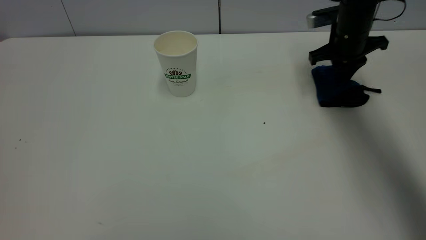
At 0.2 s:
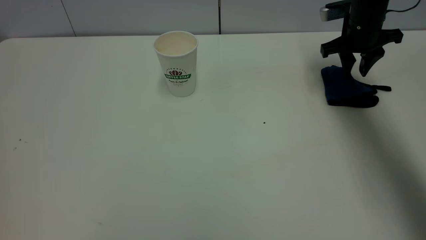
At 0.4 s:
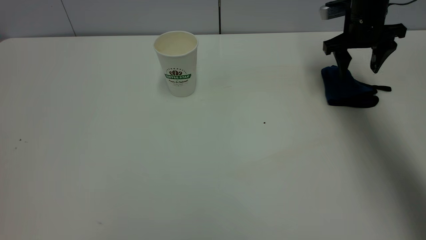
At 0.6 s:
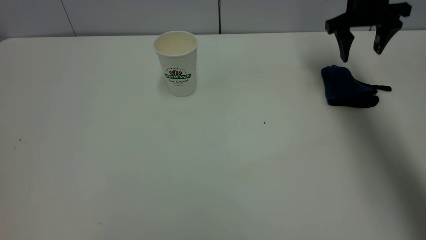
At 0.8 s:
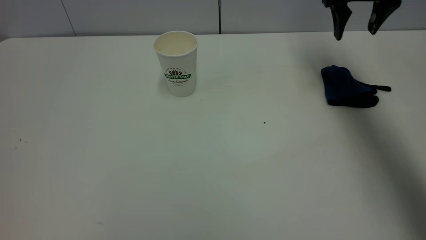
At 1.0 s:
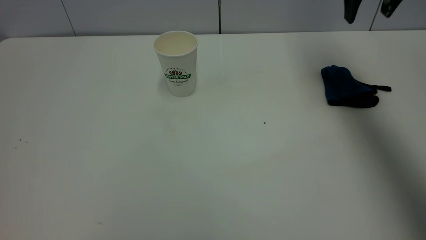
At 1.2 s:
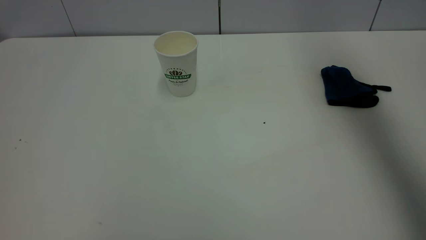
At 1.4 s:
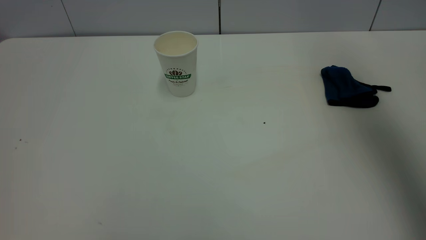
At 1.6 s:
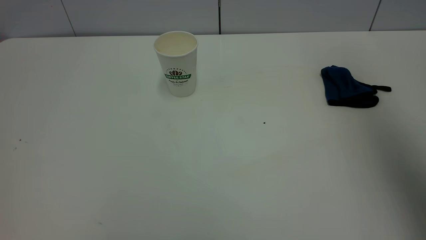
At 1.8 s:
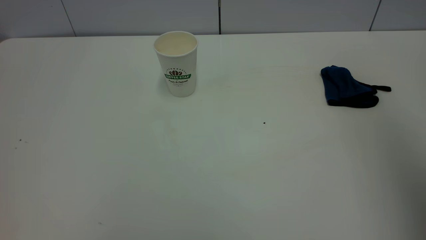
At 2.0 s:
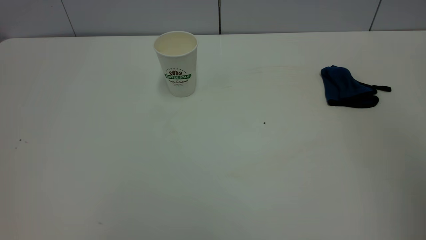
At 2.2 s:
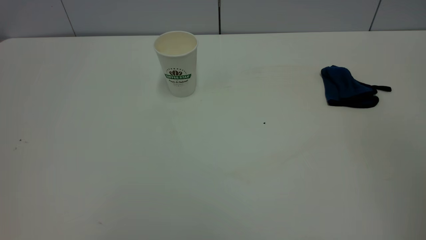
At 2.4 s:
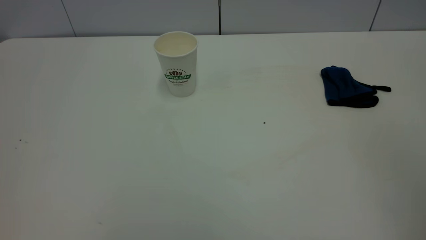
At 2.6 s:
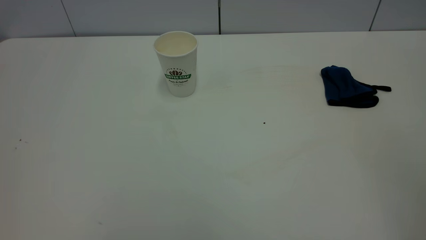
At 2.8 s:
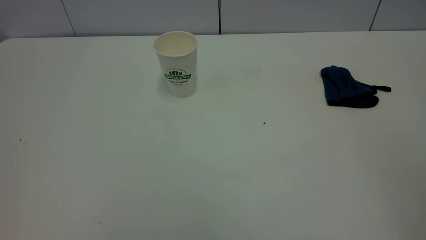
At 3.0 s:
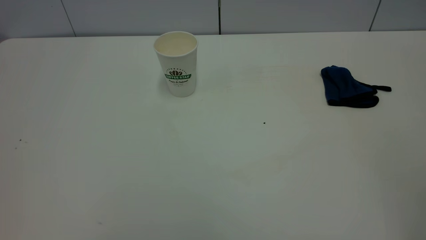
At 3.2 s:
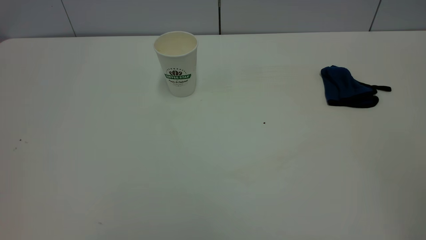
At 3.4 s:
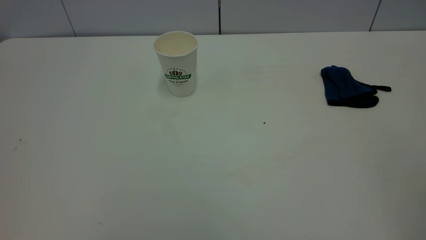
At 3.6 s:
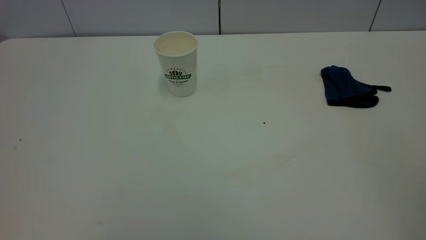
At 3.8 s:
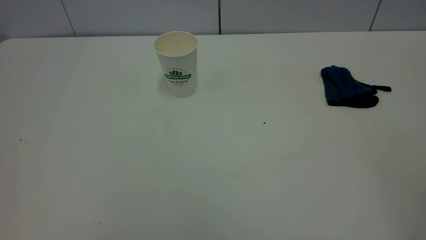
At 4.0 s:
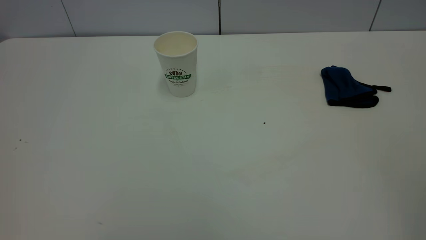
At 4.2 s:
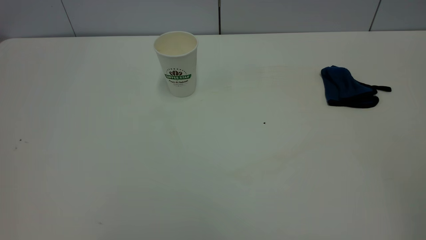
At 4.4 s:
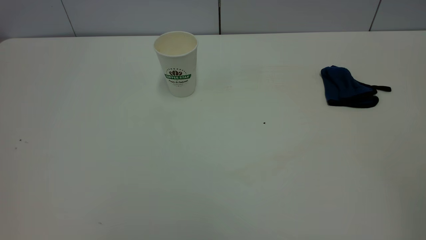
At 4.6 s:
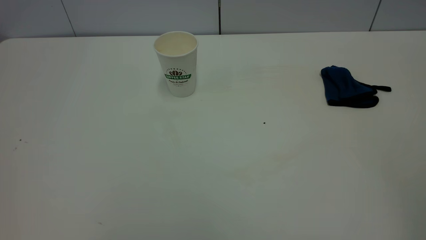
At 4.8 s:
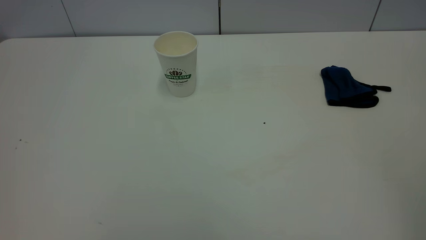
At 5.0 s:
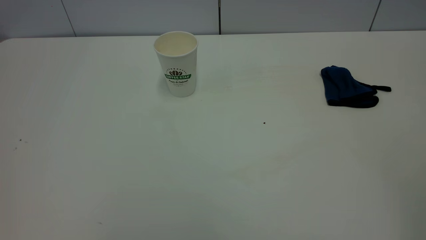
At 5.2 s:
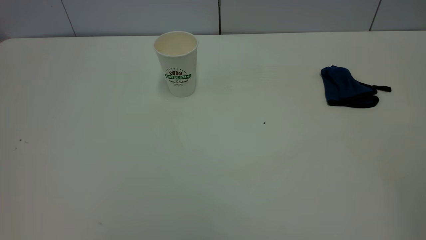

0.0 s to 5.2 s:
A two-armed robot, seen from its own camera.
Task of the whole recording: the left gripper pick up the fallen cup and place it upright, the right gripper grasp the blue rag and wipe the tea stain on the table, the right gripper put the blue rag back in its original position.
0.0 to 1.8 s: The right gripper heads backward and upward, covering some 50 cm, and opens up.
